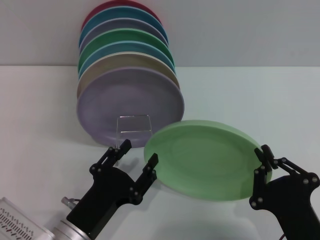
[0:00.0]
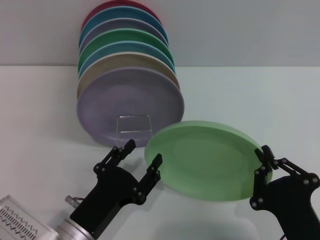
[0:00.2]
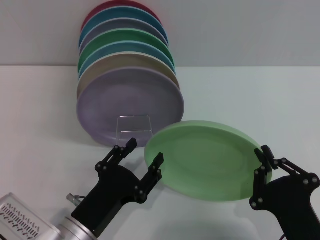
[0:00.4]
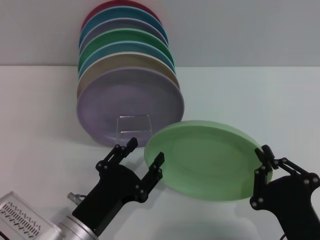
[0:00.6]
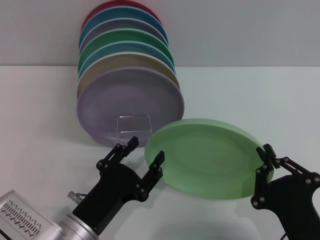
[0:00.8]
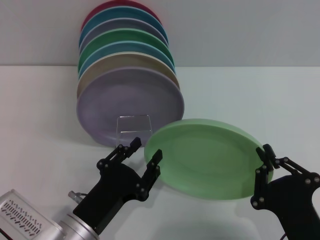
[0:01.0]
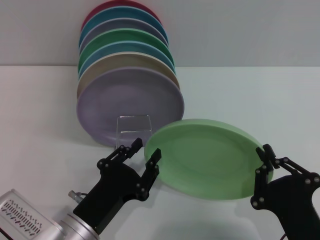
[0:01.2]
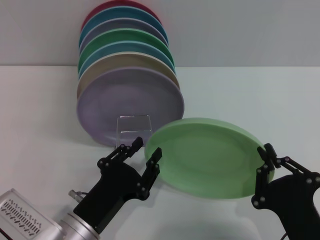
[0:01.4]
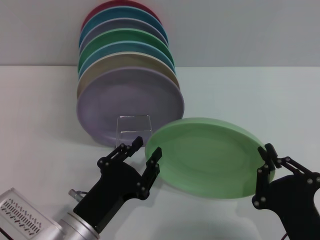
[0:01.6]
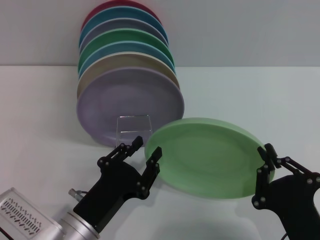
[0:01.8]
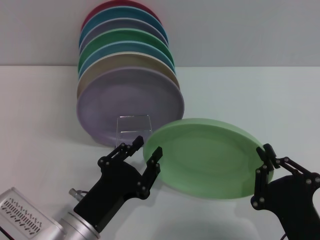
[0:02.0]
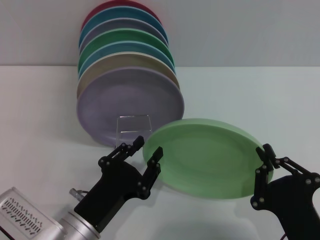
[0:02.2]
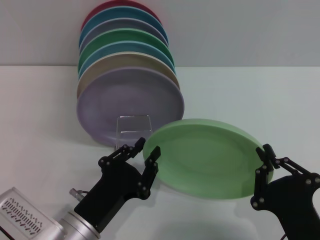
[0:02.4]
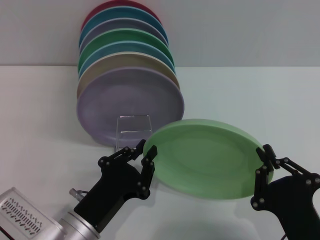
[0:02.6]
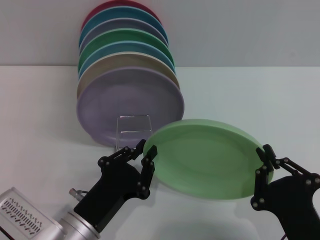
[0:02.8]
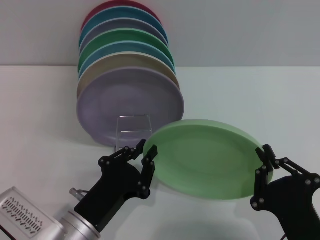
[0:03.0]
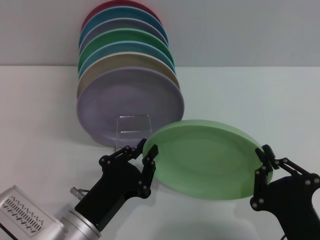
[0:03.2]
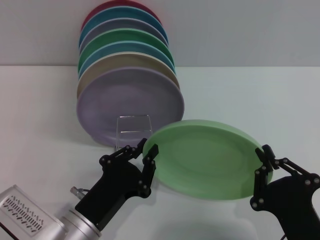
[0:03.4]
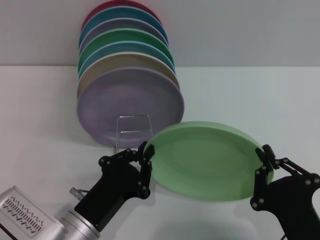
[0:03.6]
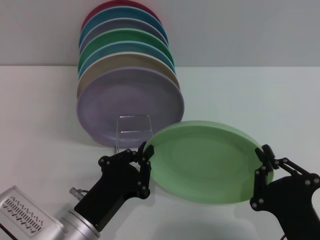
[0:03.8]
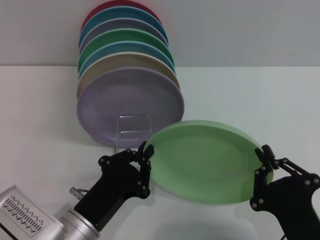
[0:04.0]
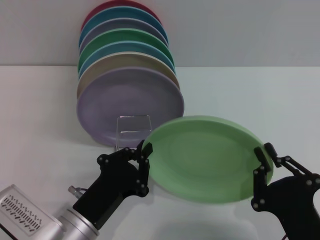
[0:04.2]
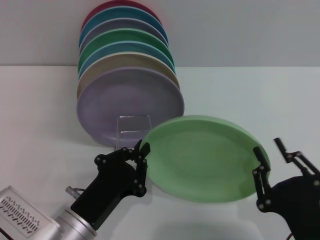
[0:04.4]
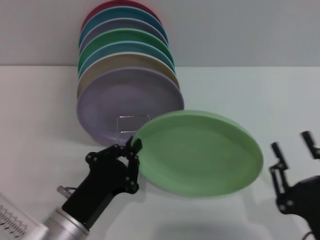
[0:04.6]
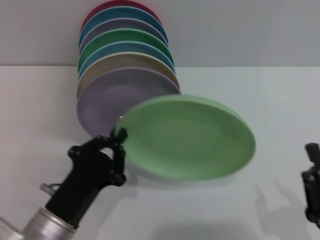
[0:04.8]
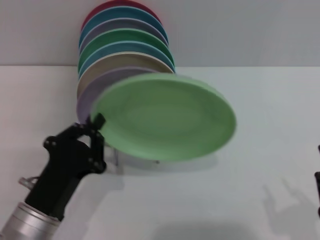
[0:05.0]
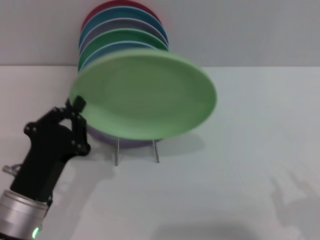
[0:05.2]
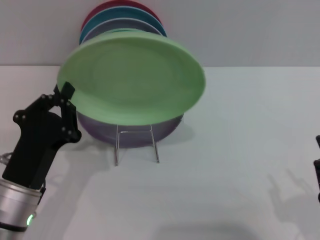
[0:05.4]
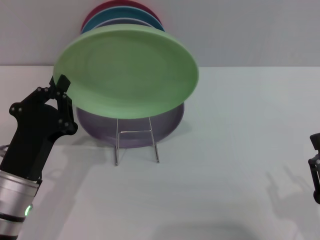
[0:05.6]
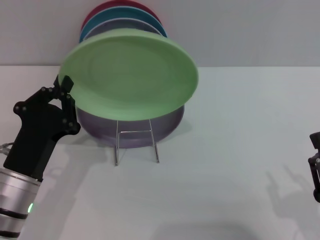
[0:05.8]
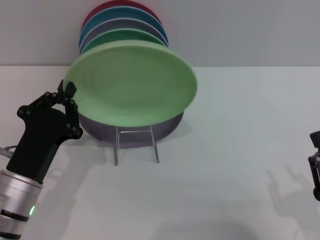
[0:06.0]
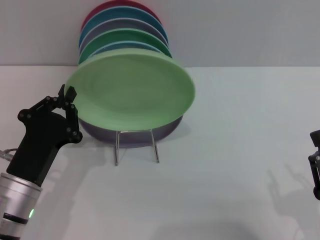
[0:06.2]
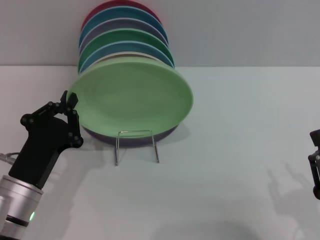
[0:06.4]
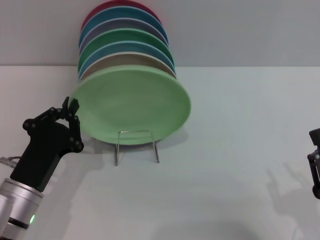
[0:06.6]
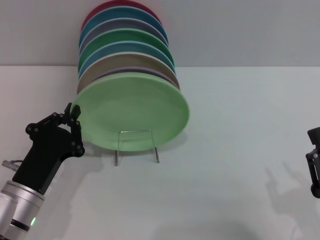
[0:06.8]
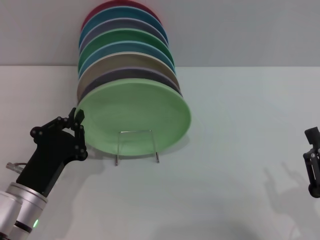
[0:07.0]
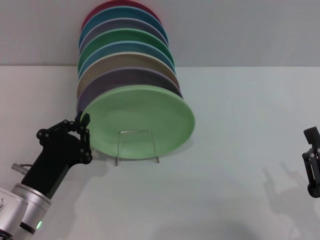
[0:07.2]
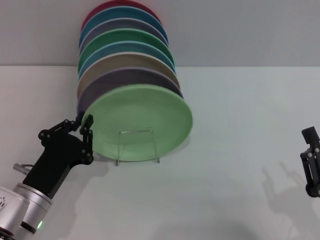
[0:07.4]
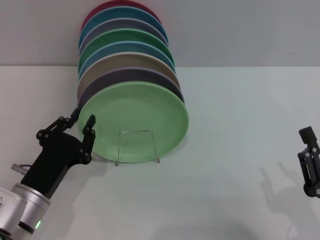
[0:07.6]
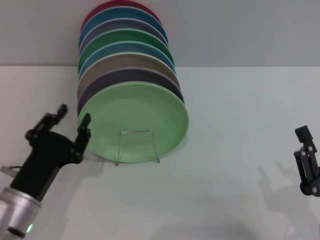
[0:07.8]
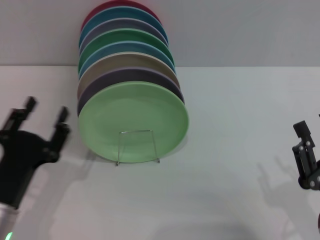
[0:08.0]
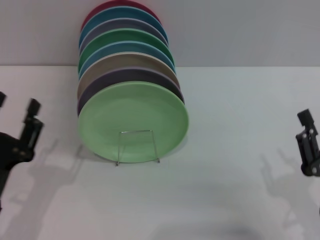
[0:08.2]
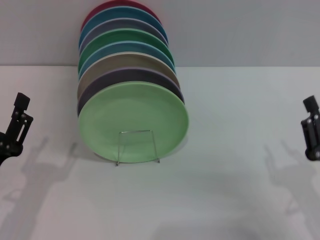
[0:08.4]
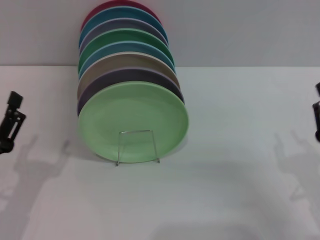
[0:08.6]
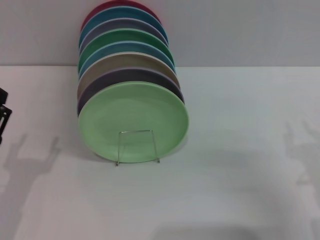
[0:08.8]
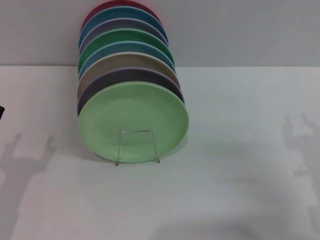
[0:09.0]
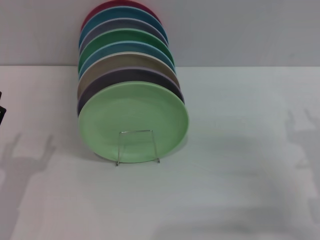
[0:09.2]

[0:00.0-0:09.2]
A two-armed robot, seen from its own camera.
Task of the whole recording: Grip the plate with one hand, pass it to the other, then set it on the shelf.
Step, 0:00.0 to 0:04.8: Pass the plate from the right gripper to the left gripper.
Step, 0:05.2 to 0:07.2: Place the plate on the shelf with the left gripper.
0:00.0 to 0:03.0: Neither gripper changes place.
0:03.0 to 0:04.6: The right gripper opens.
0:04.6 to 0:06.2: The right gripper changes place by approximately 5 cm. Meanwhile the left gripper shifts by approximately 5 cm.
0:06.2 to 0:07.6: The grippers stay close to where they were, moving slightly.
0:07.6 to 0:09.2: The right gripper travels forward by approximately 10 cm. Meanwhile the left gripper moves to the left, about 5 cm, and opens.
